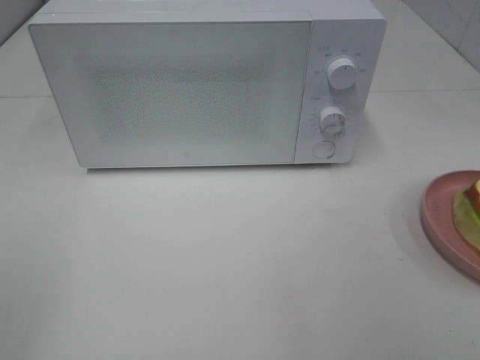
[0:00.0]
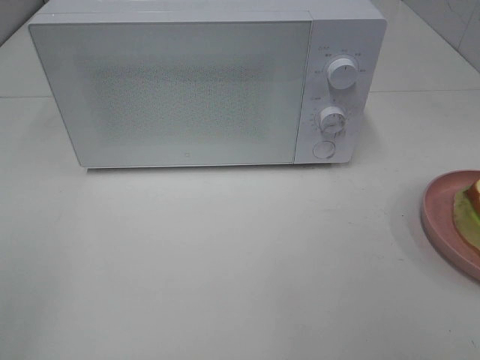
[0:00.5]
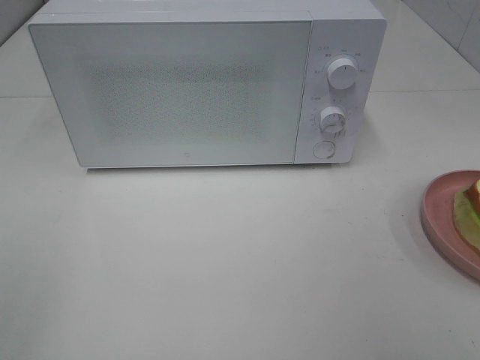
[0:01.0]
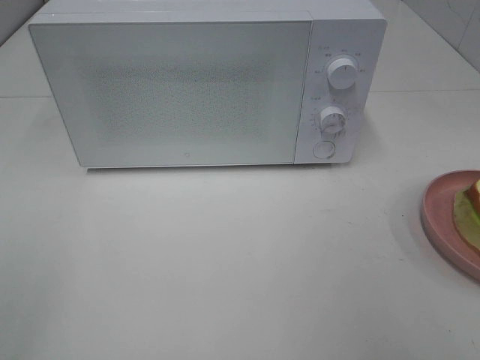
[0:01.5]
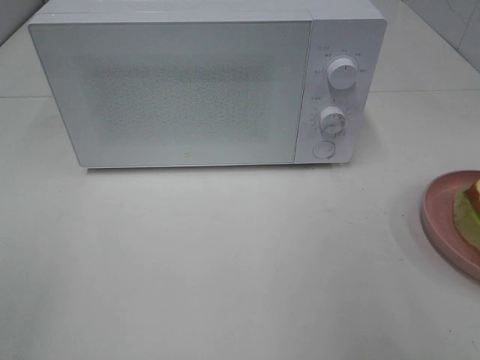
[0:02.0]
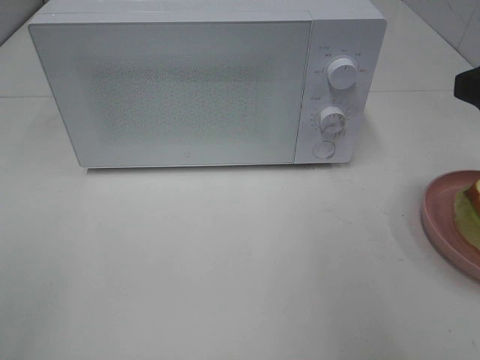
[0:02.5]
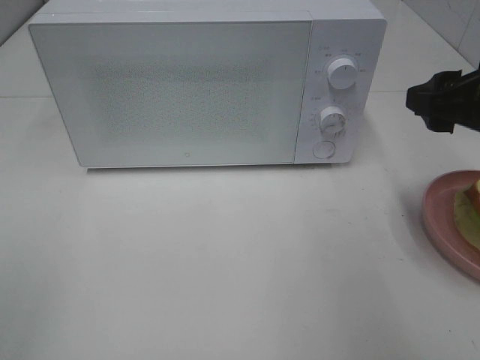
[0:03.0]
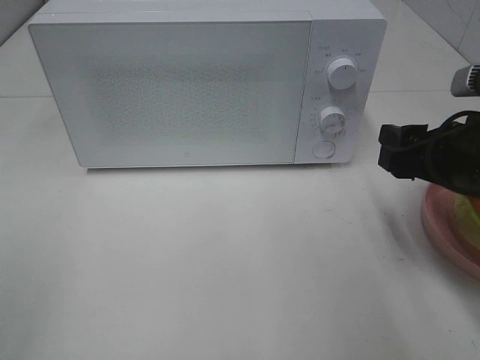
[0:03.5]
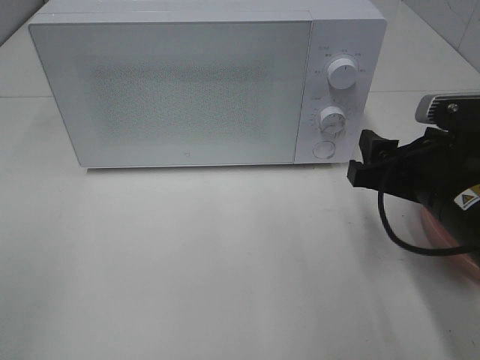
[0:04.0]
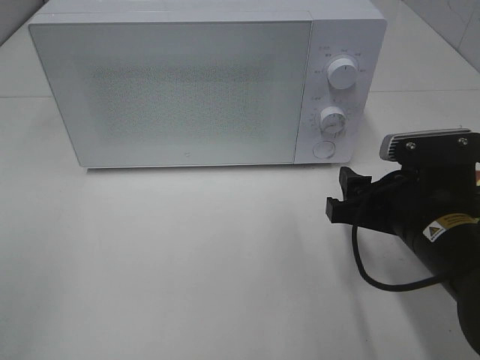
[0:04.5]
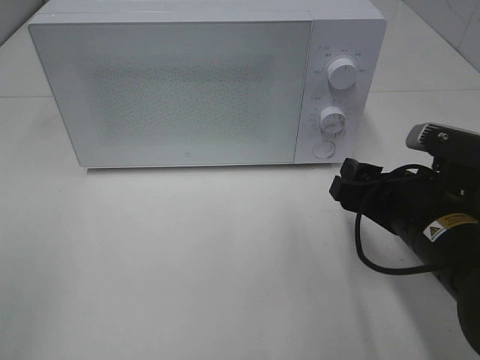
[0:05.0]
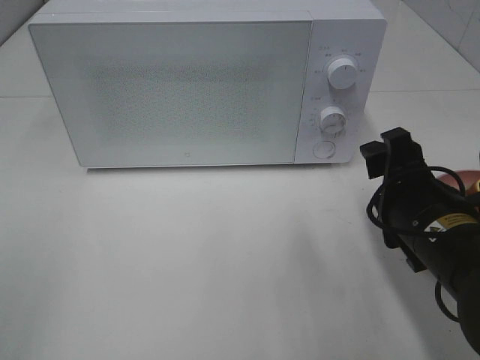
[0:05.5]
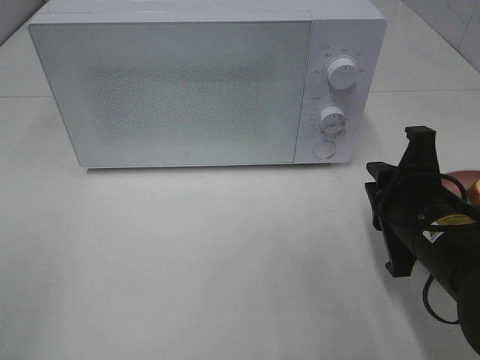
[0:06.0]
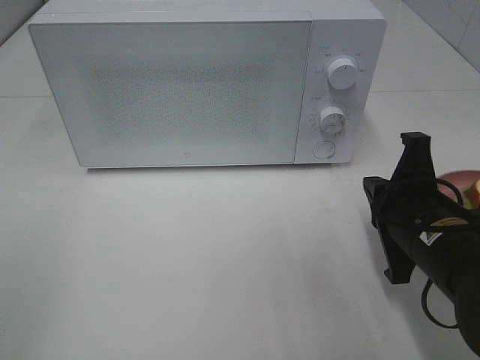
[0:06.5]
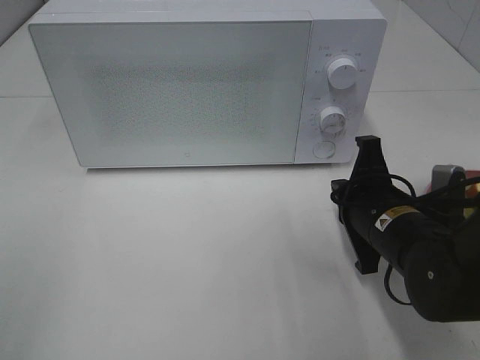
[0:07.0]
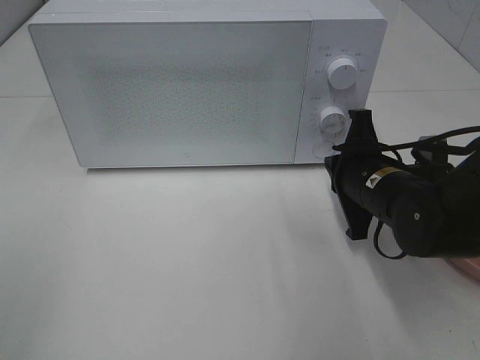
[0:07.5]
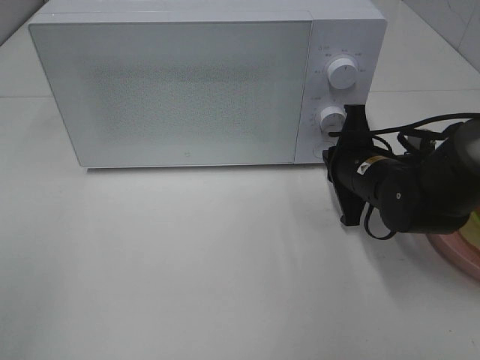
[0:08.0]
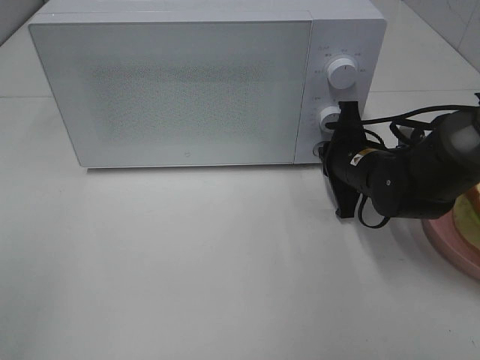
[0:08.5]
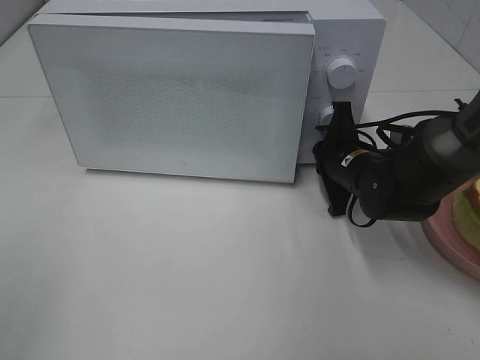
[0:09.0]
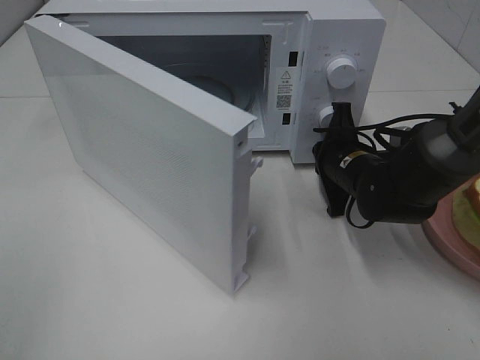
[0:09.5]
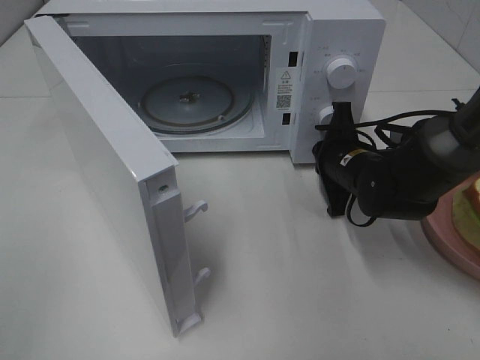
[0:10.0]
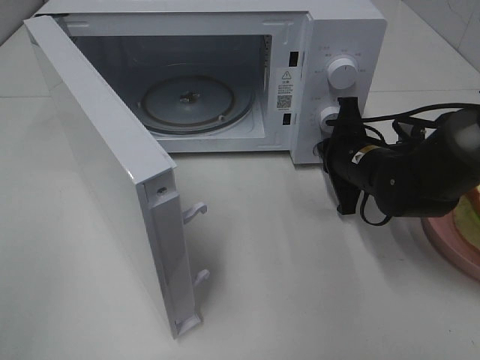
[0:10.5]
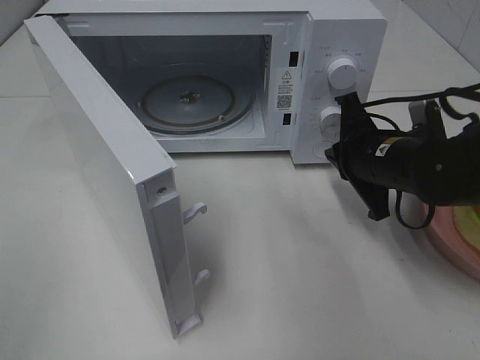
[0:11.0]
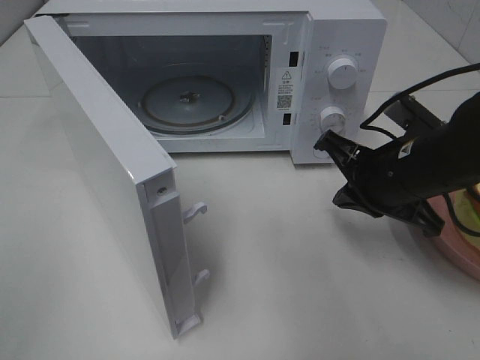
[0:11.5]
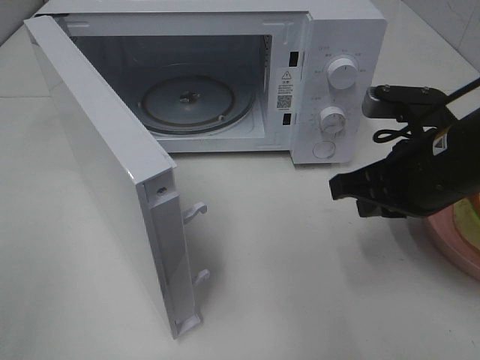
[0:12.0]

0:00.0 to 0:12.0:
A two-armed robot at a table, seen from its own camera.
Task of the whole recording: Heat Sandwich.
Step, 0:00.0 to 0:10.5: Right hand: press the switch.
0:02.0 to 0:04.0: The right gripper moves downward, to the left and forward, some 20 cm.
0:04.0 to 0:06.0: The right gripper closes.
0:06.0 to 0:08.0: The right gripper travels forward by approximately 10 cm.
0:10.0 to 0:12.0: The right gripper is displaced backward and upward by some 15 cm.

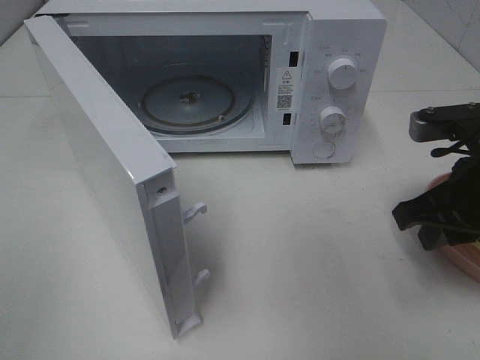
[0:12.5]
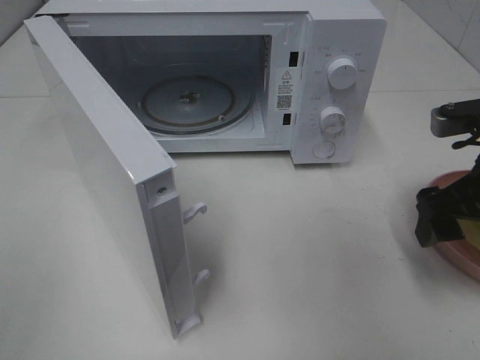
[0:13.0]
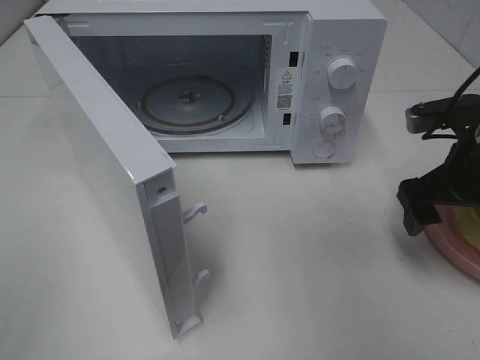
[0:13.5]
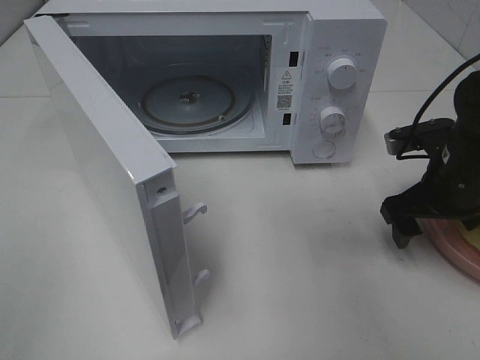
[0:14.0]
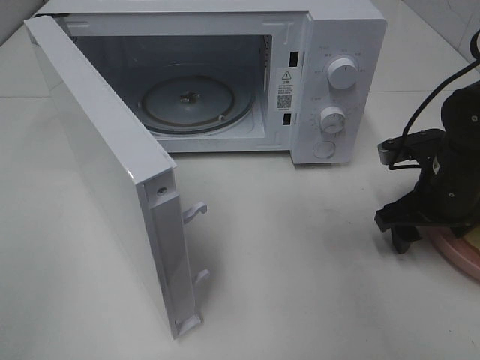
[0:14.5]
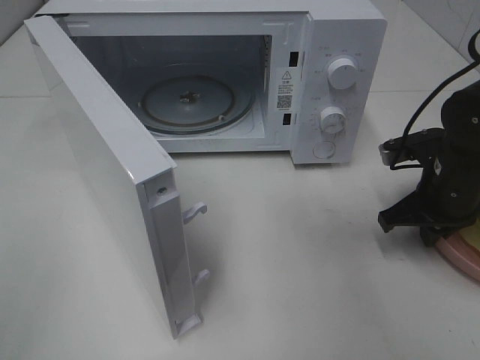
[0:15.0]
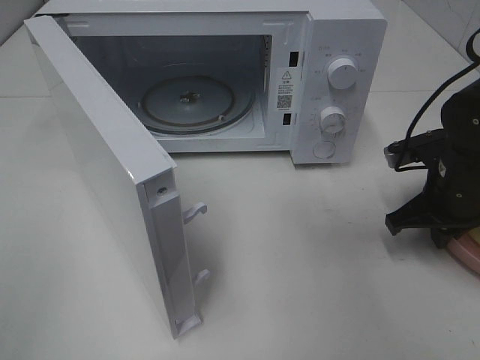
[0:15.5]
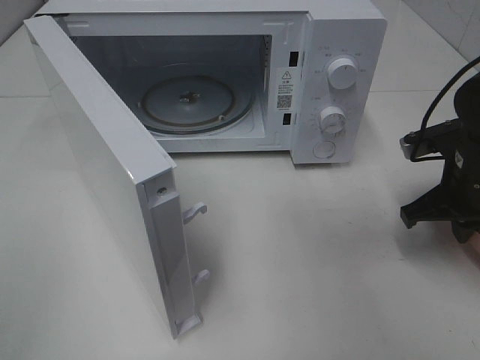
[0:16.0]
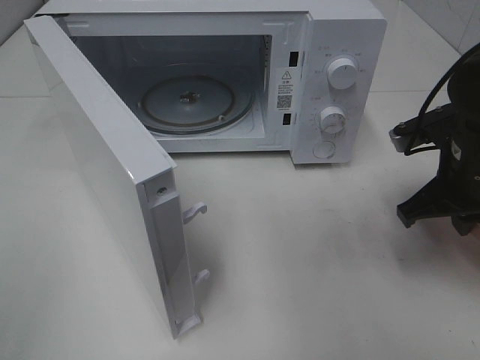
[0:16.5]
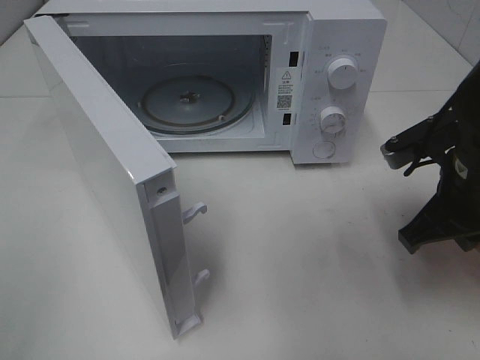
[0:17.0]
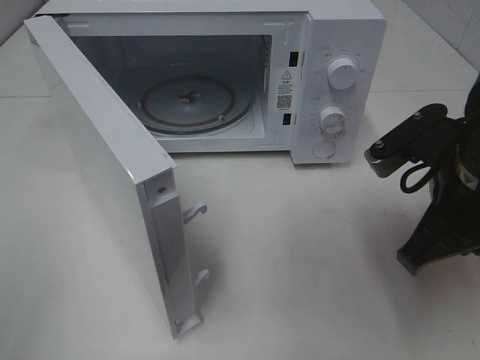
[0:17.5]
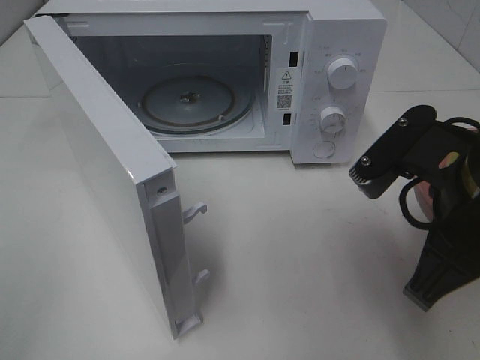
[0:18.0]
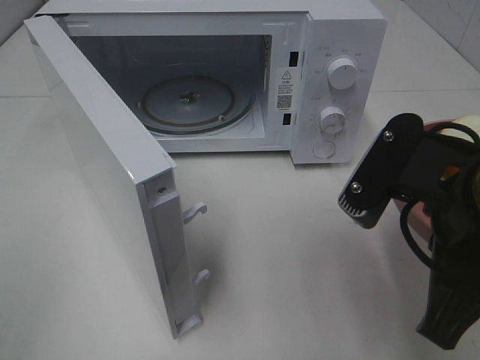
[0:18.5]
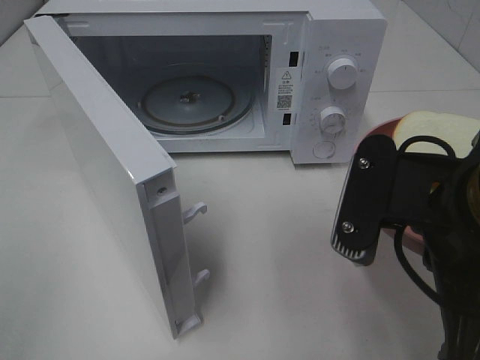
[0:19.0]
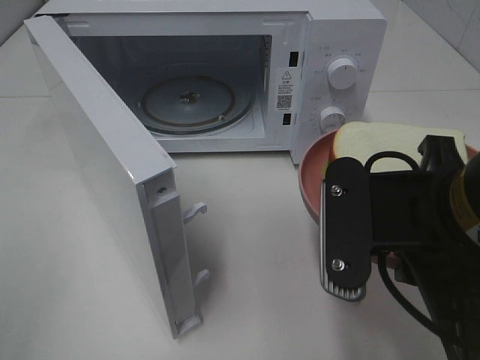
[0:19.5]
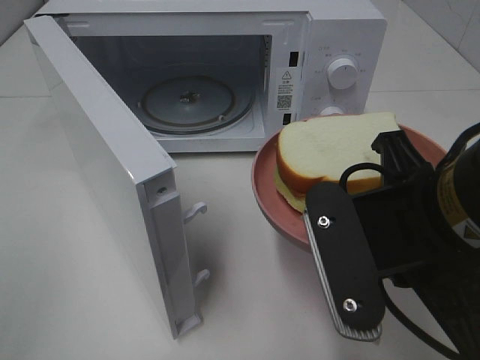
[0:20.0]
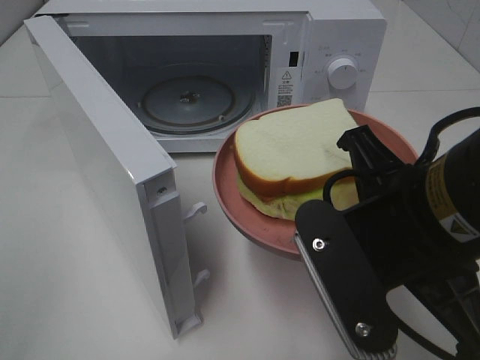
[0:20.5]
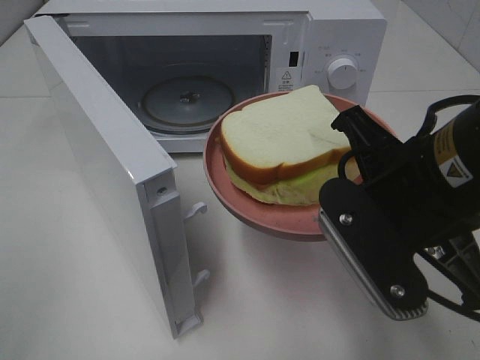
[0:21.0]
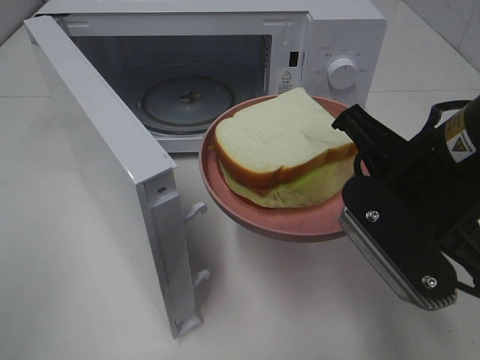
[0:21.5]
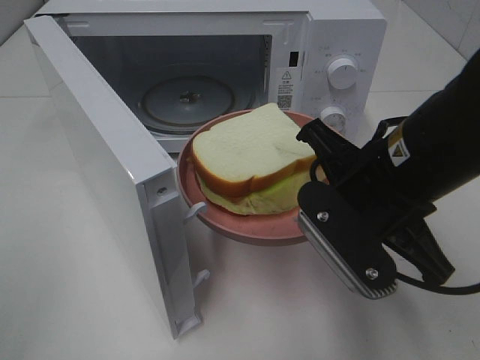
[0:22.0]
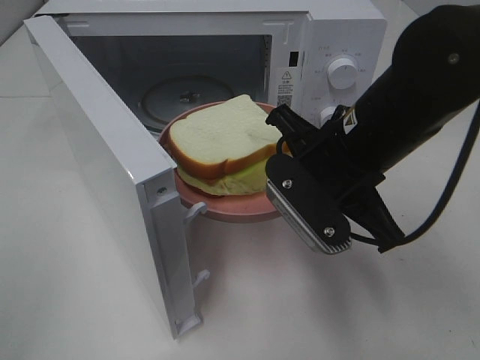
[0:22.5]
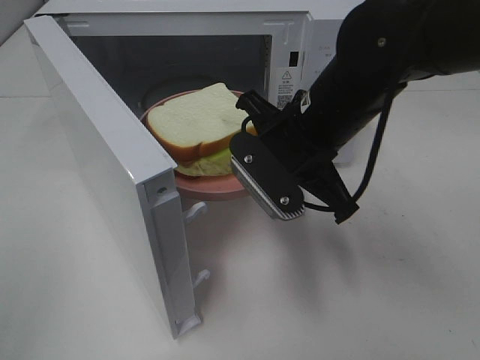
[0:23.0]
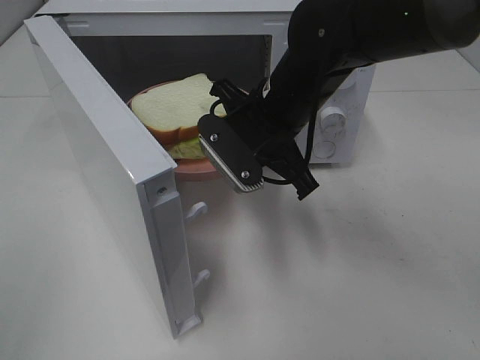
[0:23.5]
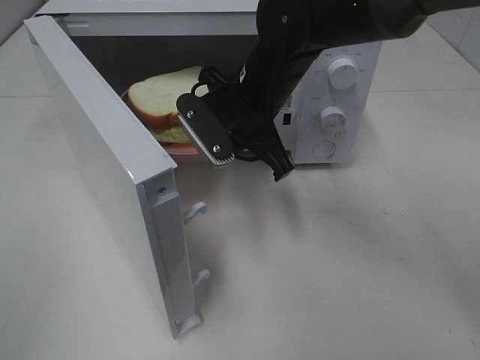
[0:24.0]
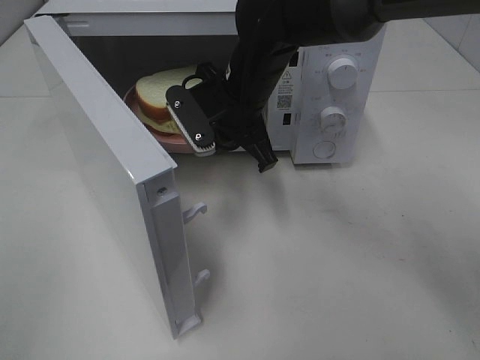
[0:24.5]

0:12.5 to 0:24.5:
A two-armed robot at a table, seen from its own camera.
Task of the whole recording: Heat Sandwich.
Step, 0:12.5 to 0:15.0: Right hand: grab the plate with the sandwich.
0:12.5 to 0:14.5: The right gripper shifts some 10 cm downward and forward, and opens its fingers.
0:14.5 to 0:16.5: The right gripper travels upward by about 5 cm, and closes.
0:16.5 to 0:18.5: The right gripper travels backward, to the left and upward by some 20 cm.
0:20.5 to 0:22.5: The right gripper moves forward, roughly 10 cm.
0:22.5 to 0:24.5: The right gripper heads forward and to the left, covering about 15 cm.

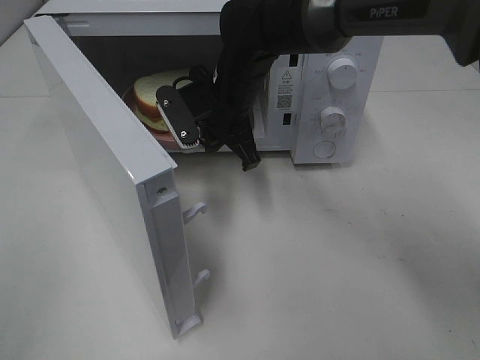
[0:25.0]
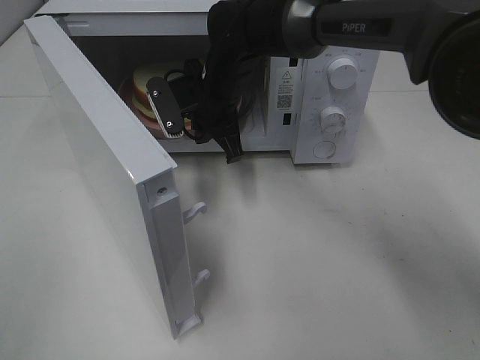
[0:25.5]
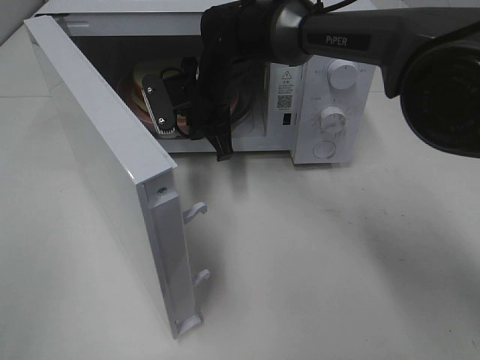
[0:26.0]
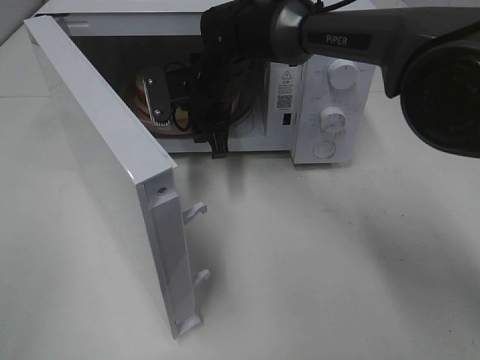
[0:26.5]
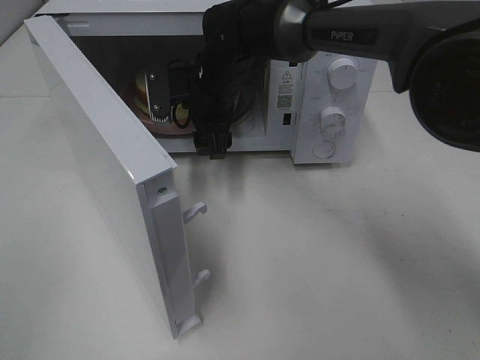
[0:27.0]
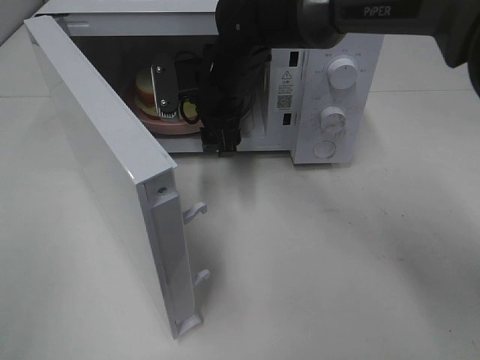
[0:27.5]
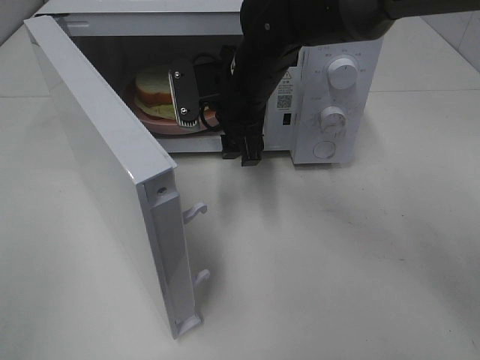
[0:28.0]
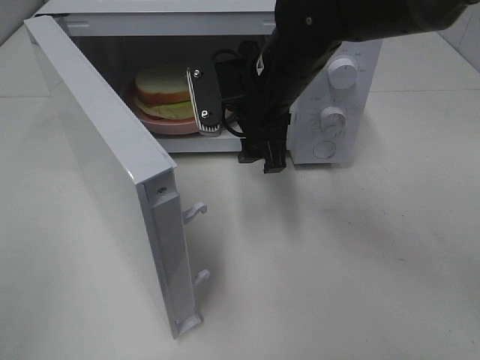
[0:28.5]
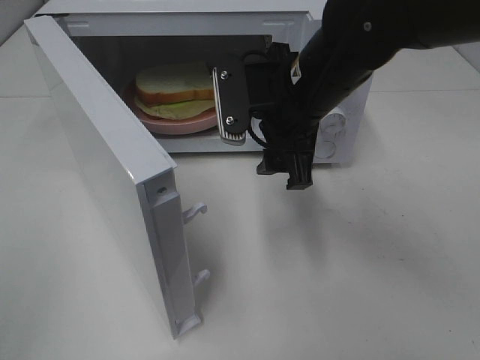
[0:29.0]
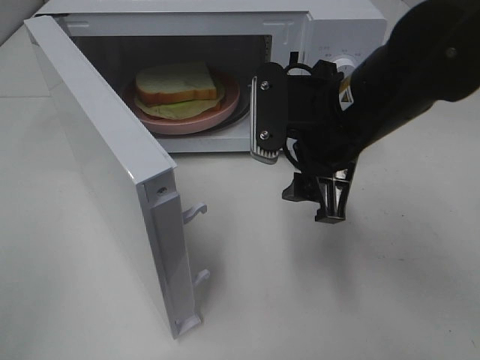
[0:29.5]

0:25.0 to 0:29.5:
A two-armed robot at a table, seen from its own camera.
Task of the whole recording: Heat Sandwich.
0:25.0 to 0:27.0: The right gripper opens.
0:27.0 to 0:29.5: The right gripper travels backward and to the right by about 20 cm.
